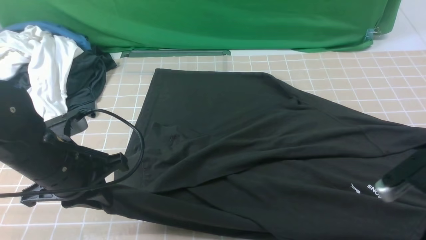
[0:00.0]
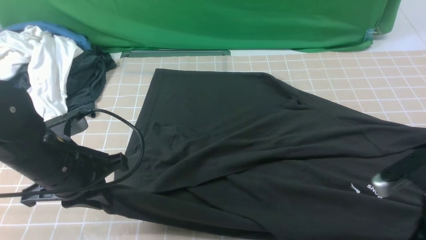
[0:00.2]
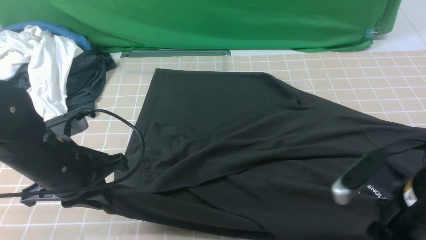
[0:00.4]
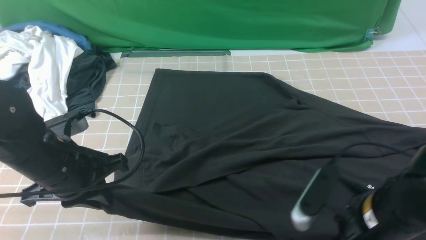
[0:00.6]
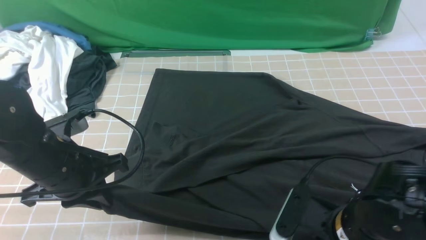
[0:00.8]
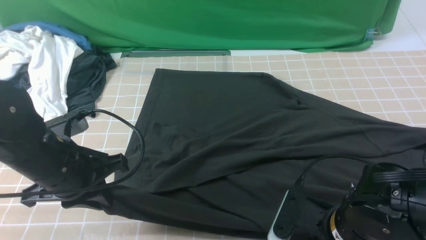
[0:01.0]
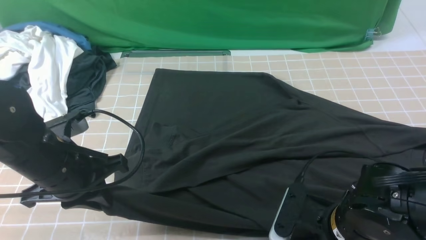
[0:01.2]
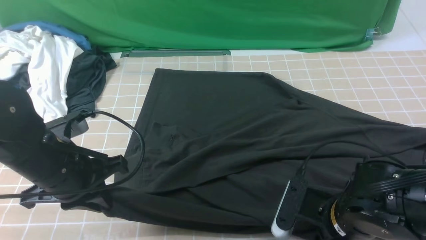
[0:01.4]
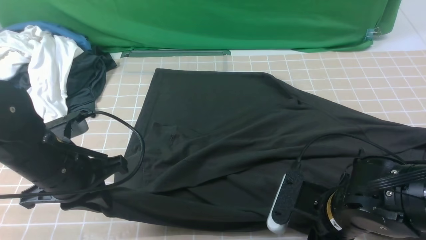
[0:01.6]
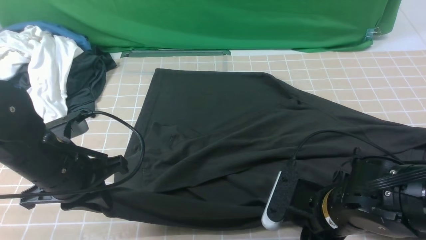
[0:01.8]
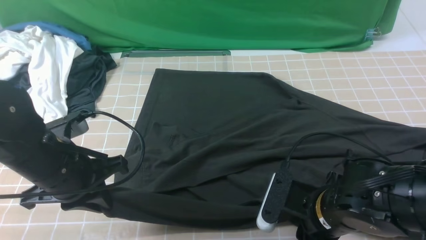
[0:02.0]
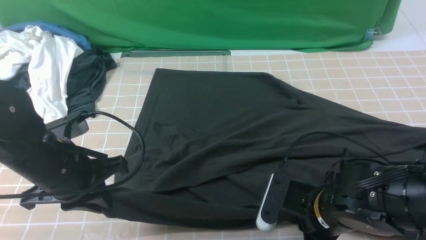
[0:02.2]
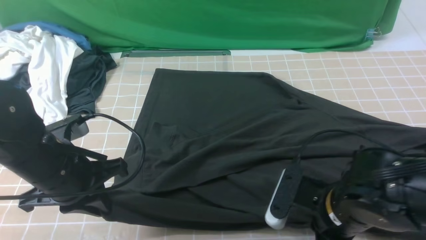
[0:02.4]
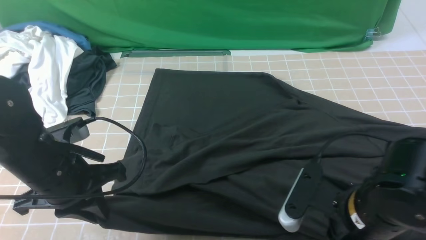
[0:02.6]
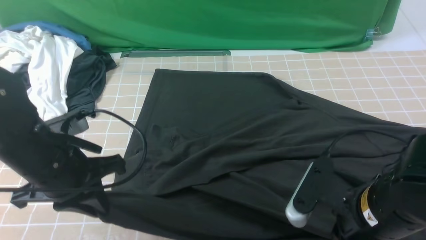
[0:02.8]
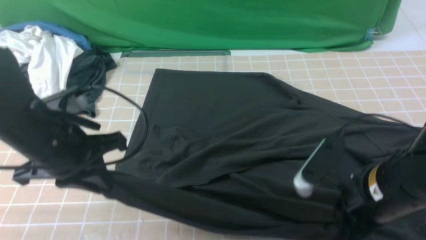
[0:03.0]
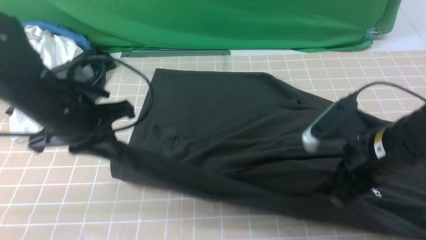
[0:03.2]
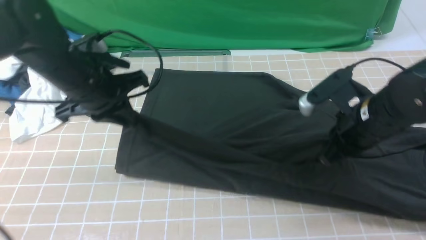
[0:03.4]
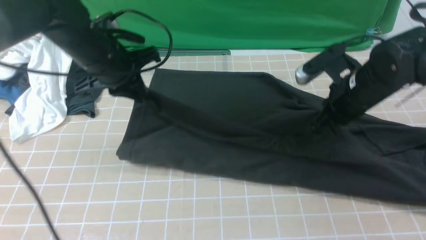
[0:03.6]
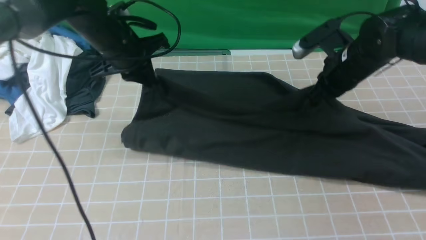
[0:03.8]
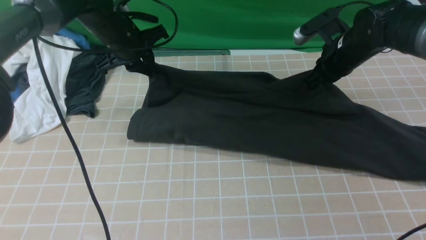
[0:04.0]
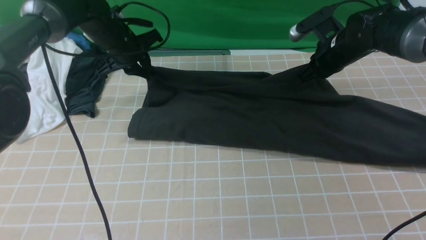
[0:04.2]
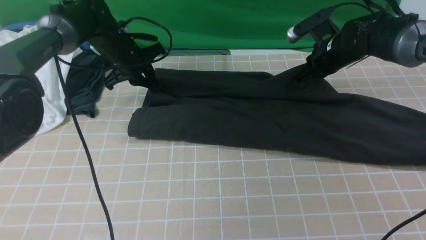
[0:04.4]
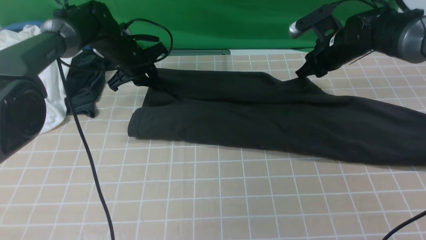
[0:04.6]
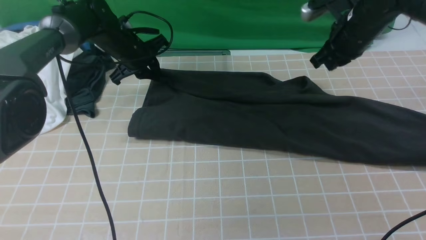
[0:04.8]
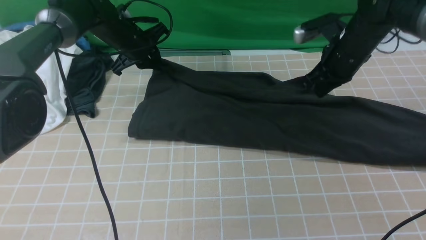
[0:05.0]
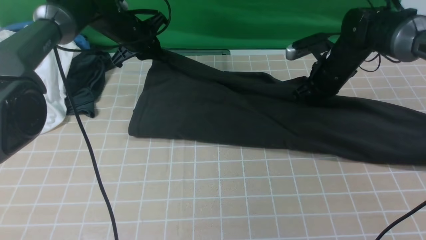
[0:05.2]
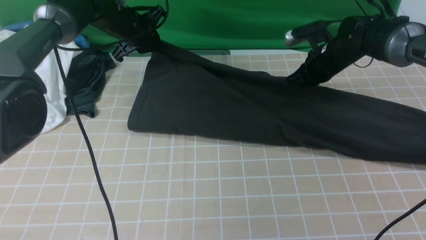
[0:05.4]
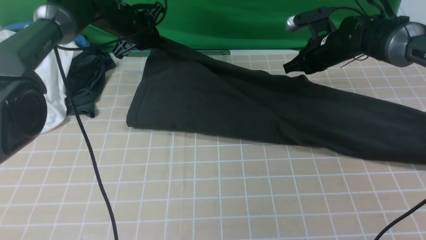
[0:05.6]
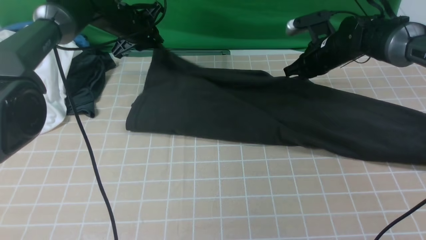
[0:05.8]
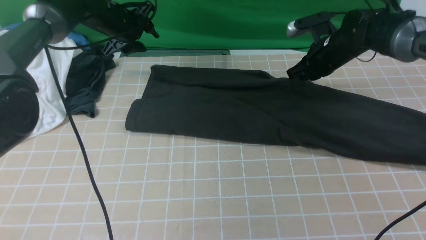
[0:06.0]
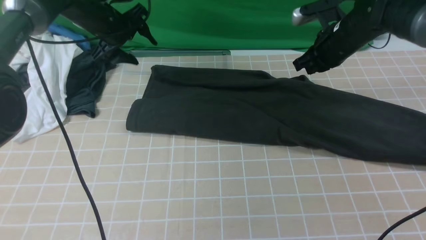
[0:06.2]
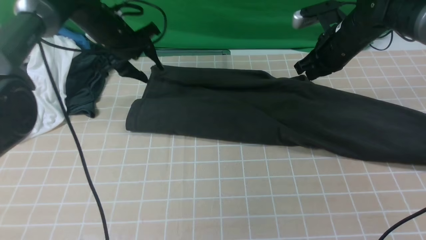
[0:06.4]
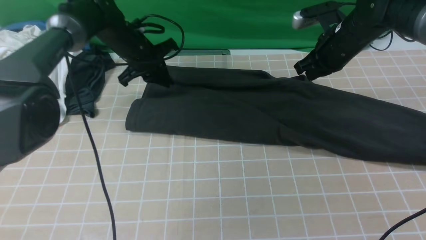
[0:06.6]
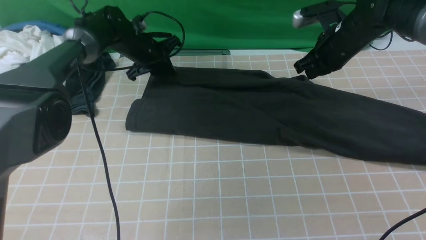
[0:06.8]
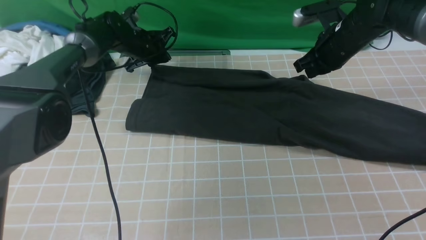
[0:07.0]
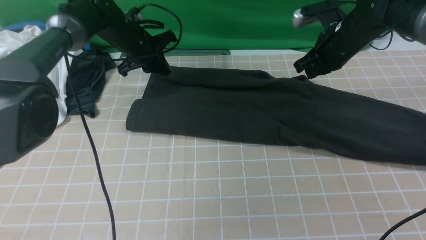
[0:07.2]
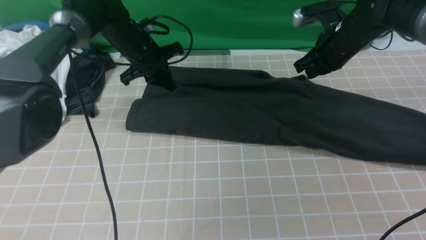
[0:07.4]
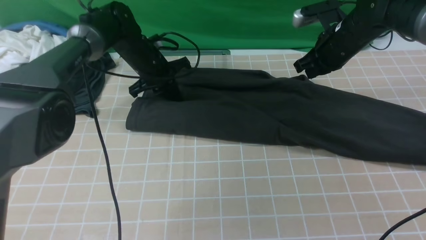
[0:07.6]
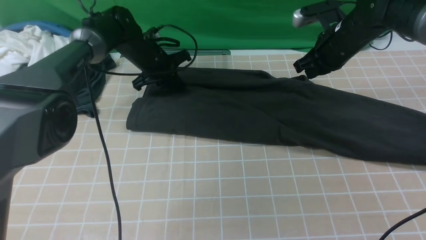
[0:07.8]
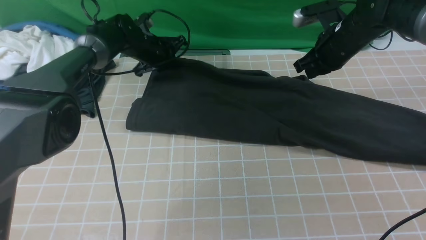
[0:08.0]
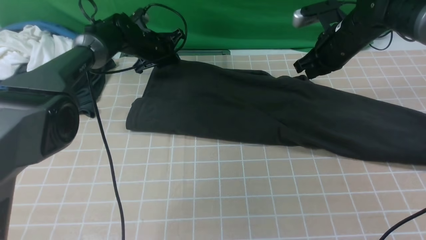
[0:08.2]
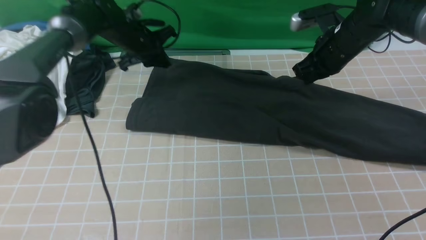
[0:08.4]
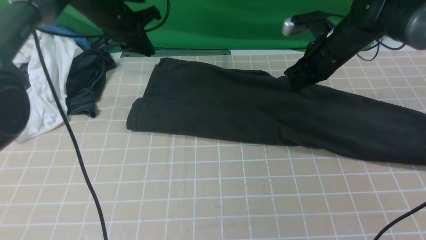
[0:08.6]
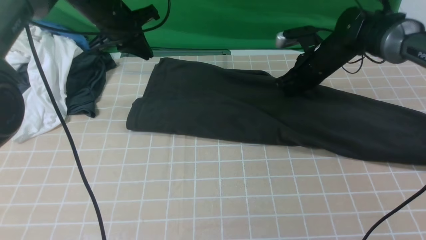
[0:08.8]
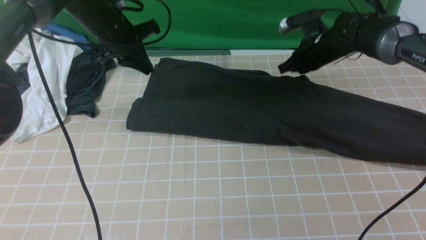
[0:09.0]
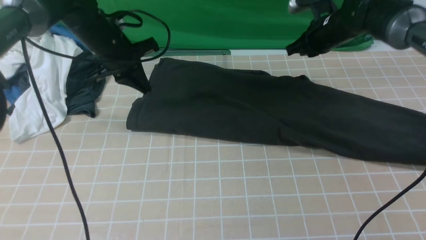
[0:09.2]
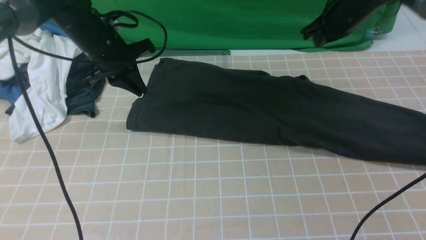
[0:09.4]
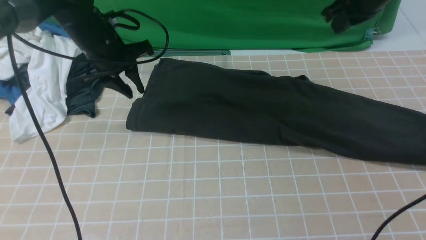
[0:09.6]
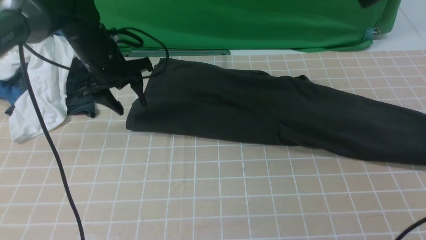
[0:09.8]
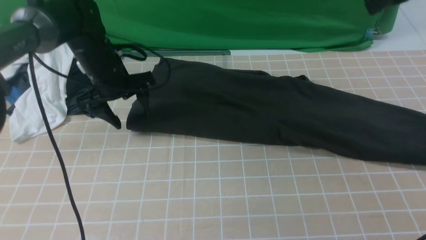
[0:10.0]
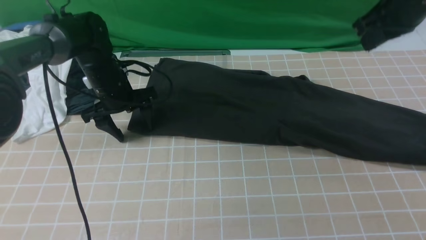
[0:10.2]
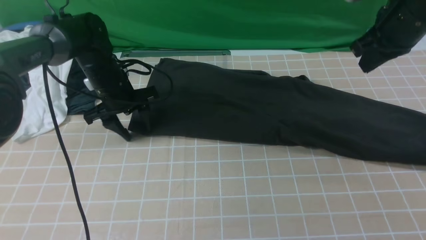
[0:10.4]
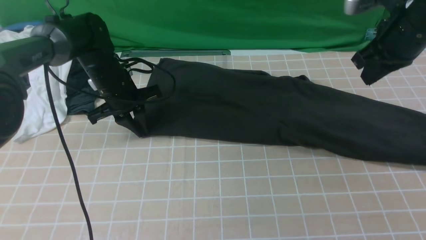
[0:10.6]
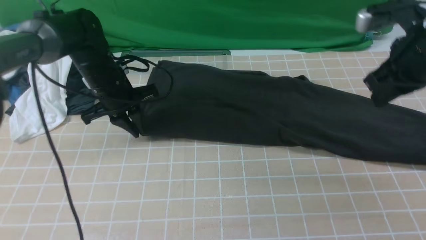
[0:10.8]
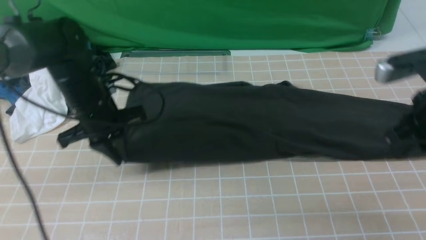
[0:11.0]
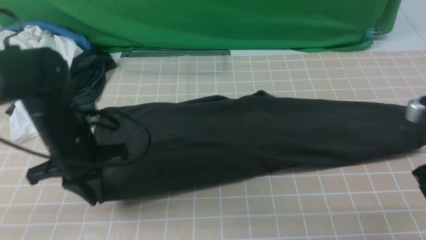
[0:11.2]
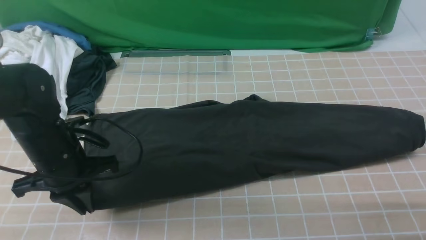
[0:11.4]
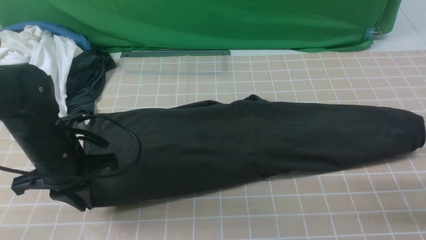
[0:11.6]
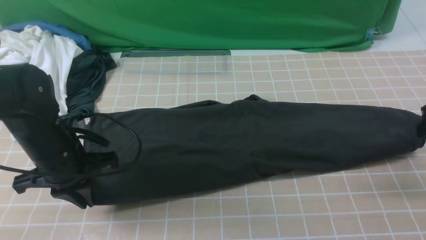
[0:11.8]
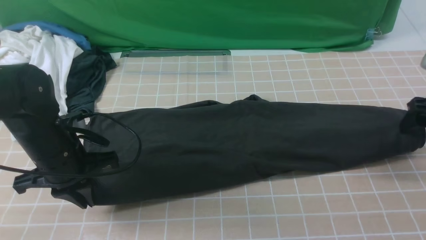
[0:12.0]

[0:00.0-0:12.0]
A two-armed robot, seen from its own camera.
Step, 0:00.0 to 0:06.0: use both arms to drag the lower edge of the fabric forward and fold it over the upper edge.
0:00.0 to 0:01.6: The right gripper moves to the left, roughly 10 cm, and opens up.
0:01.6 to 0:03.0: The right gripper moves upward, approximately 5 cm, and closes up.
0:03.0 to 0:04.4: The two grippers go approximately 25 cm forward.
0:04.4 to 0:06.0: The left gripper shifts by about 5 cm, and opens.
0:06.0 to 0:07.6: The left gripper is displaced downward and to the right by approximately 10 cm, and closes up.
0:07.6 to 0:09.0: The left gripper is displaced upward by roughly 10 cm. Meanwhile the right gripper moves forward, about 5 cm.
0:09.0 to 0:10.4: The right gripper heads upward, backward and to the right, covering roughly 20 cm, while the left gripper is displaced downward by roughly 10 cm, and opens its fingers.
0:10.4 to 0:12.0: The left gripper goes approximately 15 cm backward, and closes its fingers. The right gripper goes roughly 15 cm downward and to the right, travels backward and back again, some 15 cm each way, and opens up.

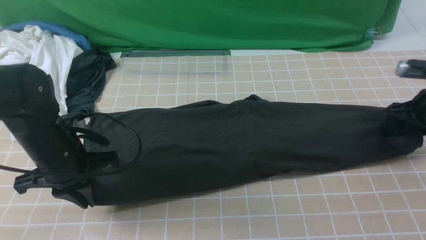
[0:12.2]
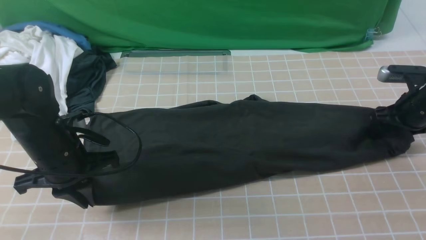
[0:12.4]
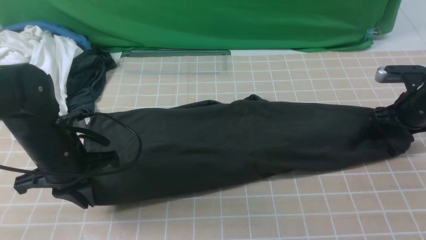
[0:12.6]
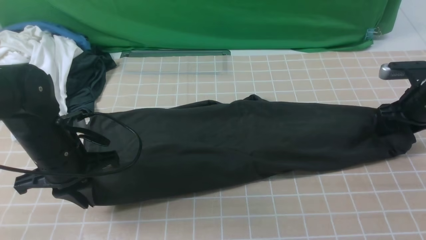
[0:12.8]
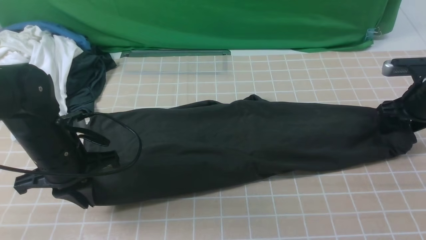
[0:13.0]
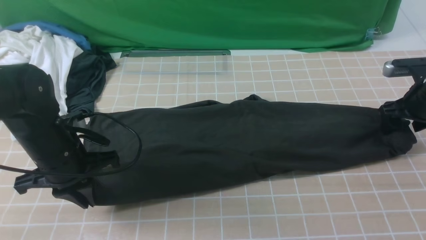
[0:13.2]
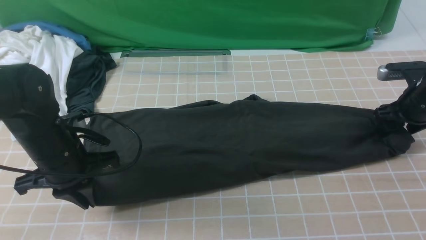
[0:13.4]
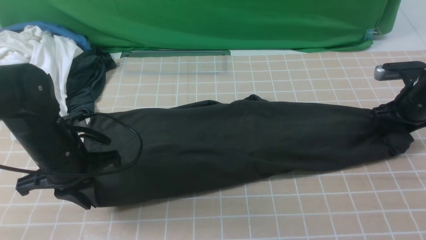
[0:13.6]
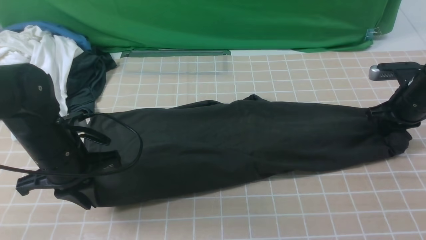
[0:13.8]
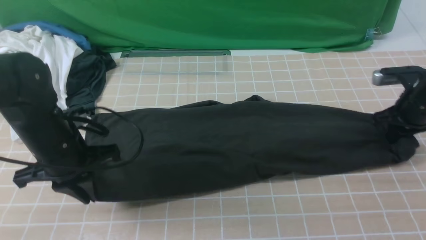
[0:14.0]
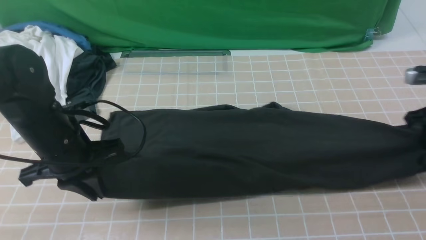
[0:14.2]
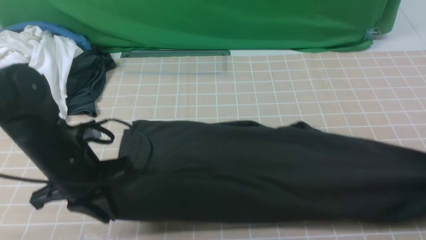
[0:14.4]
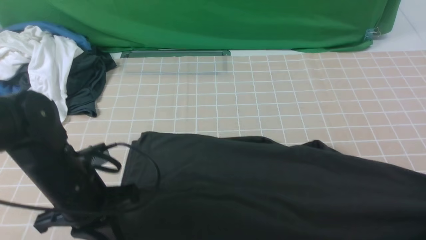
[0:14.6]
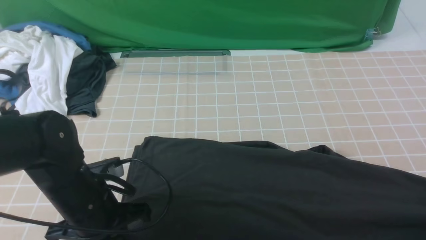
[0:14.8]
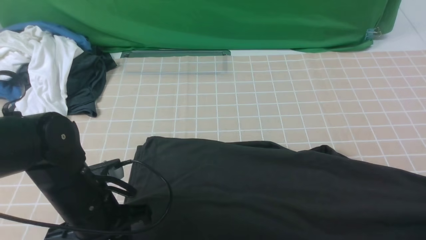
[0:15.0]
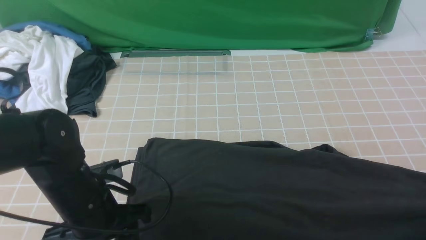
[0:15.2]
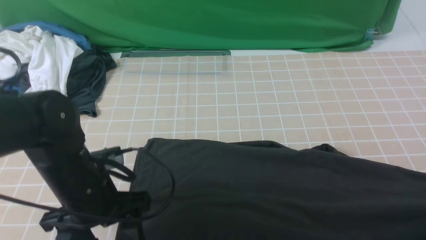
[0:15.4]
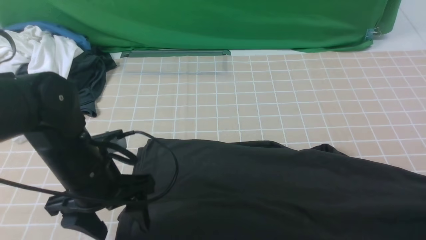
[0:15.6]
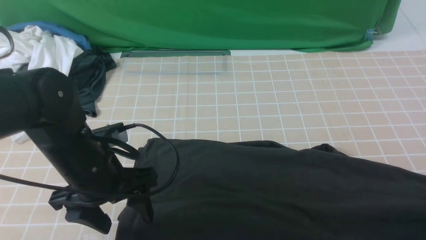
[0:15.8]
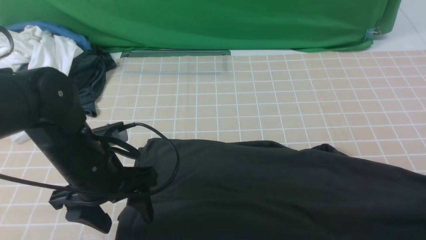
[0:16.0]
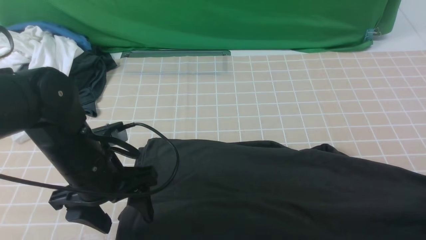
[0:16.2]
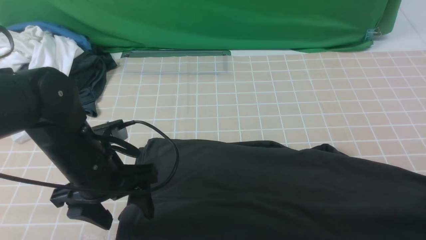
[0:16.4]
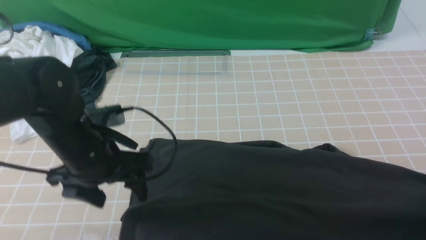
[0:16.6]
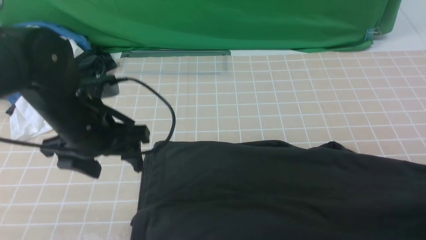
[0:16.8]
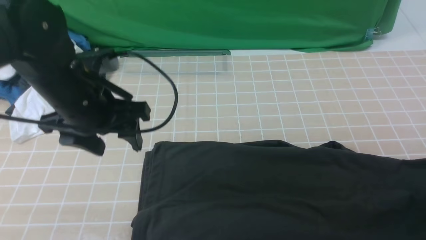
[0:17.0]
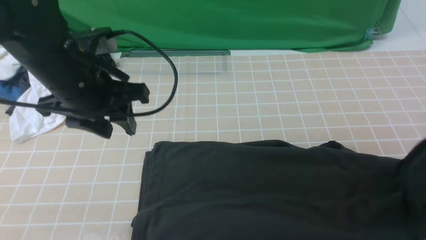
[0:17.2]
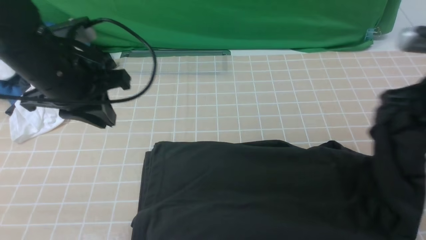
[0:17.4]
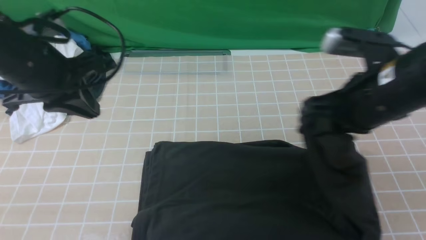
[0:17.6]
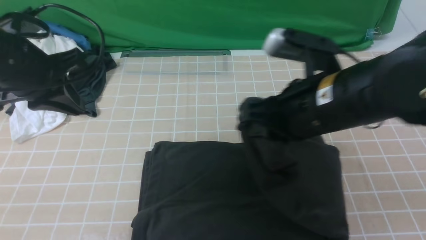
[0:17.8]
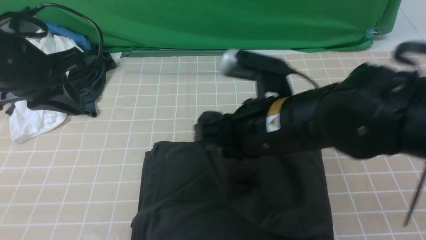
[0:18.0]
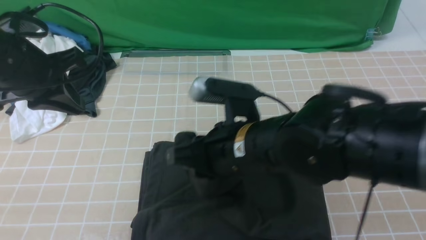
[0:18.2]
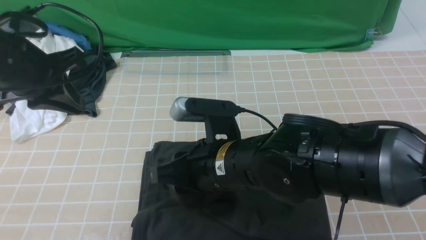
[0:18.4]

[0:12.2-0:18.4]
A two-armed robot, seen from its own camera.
Step, 0:12.2 to 0:16.8: use the right arm to clamp the right edge of the fabric.
0:12.2 to 0:13.8: The right gripper closes its fingers.
0:13.8 to 0:15.4: The left gripper shifts some 5 cm backward and to the right, and opens its fingers, while the right gripper moves backward and to the right, about 20 cm.
0:15.4 to 0:16.8: The right gripper opens and closes again, while the left gripper shifts approximately 10 cm upward and forward.
0:16.8 to 0:18.4: The right gripper travels to the left by roughly 40 cm, and opens its fingers, while the left gripper shifts about 10 cm to the left and upward, and closes up.
